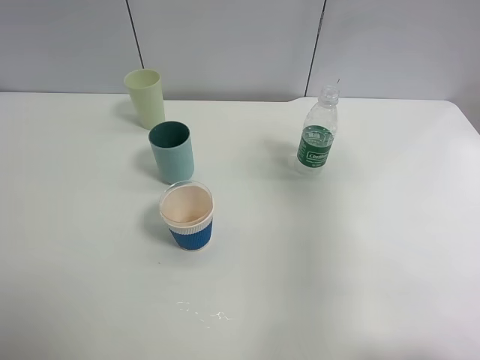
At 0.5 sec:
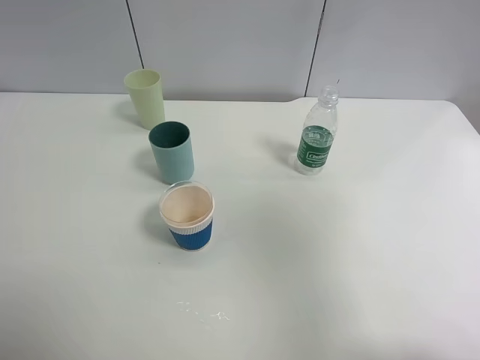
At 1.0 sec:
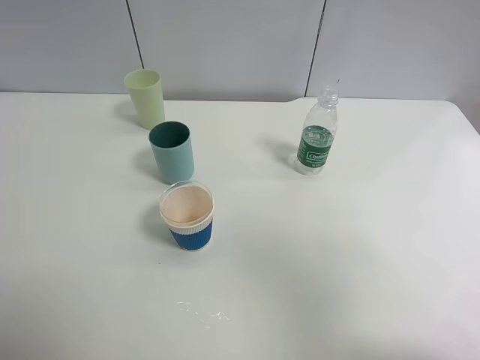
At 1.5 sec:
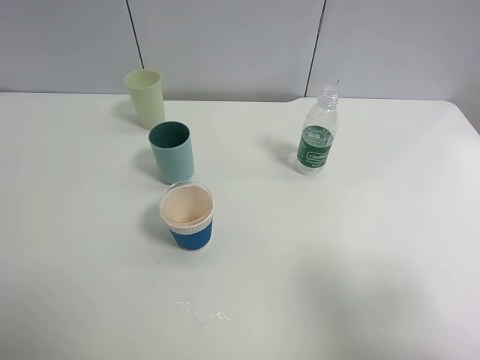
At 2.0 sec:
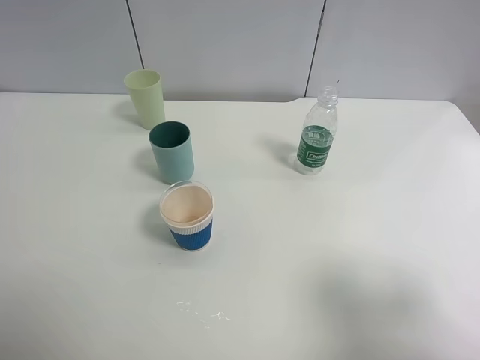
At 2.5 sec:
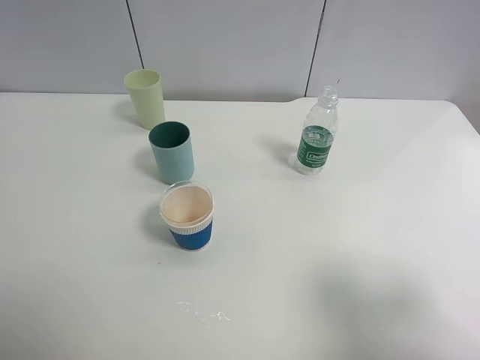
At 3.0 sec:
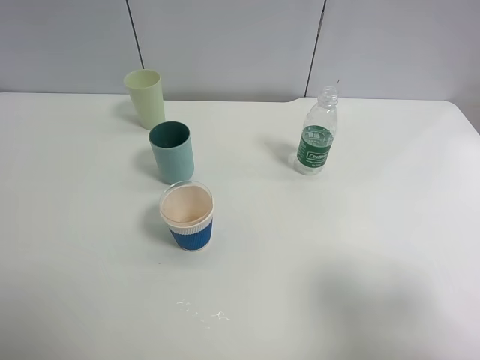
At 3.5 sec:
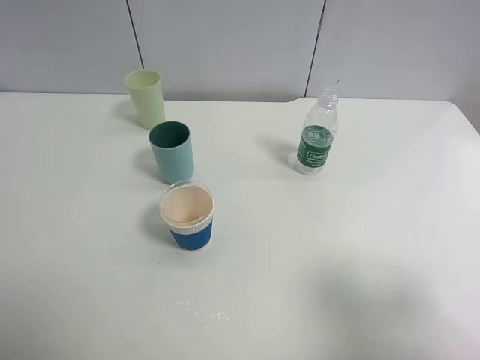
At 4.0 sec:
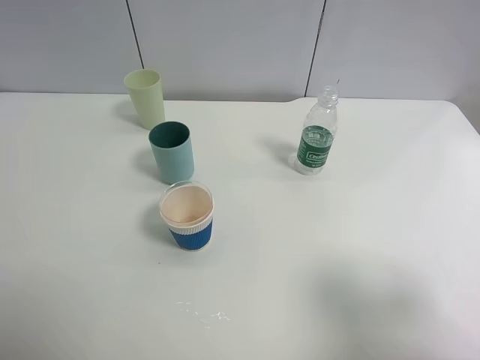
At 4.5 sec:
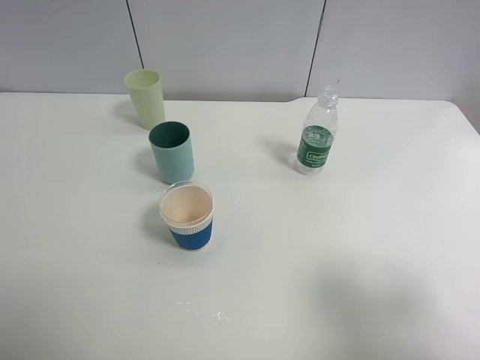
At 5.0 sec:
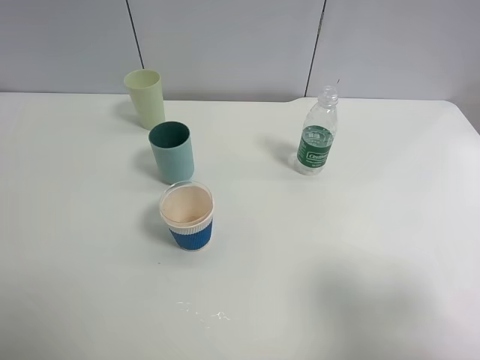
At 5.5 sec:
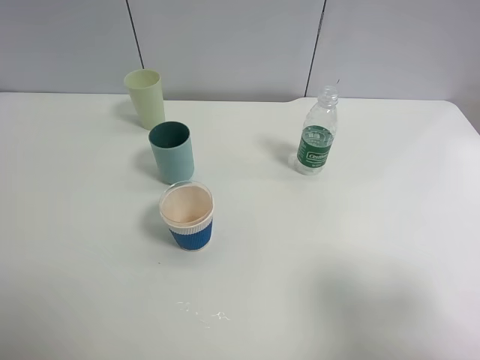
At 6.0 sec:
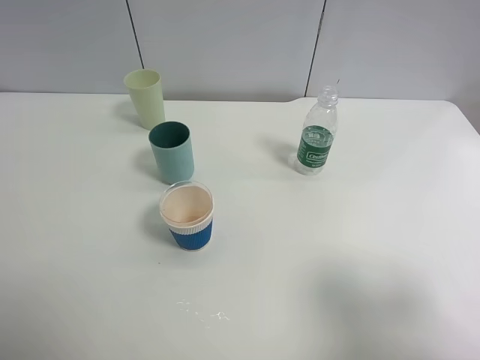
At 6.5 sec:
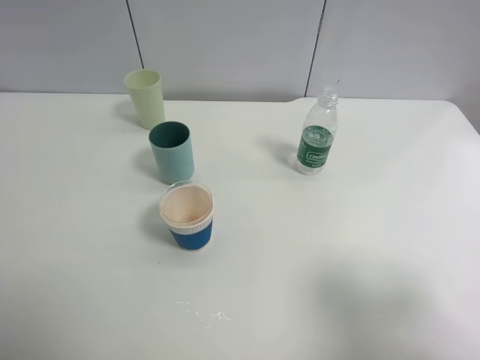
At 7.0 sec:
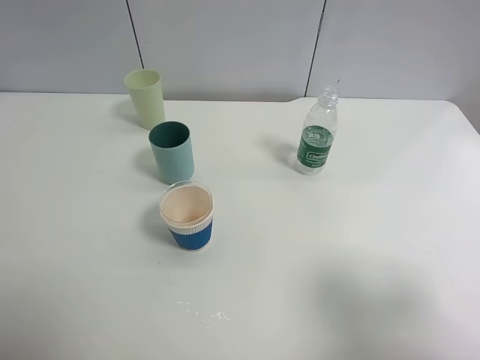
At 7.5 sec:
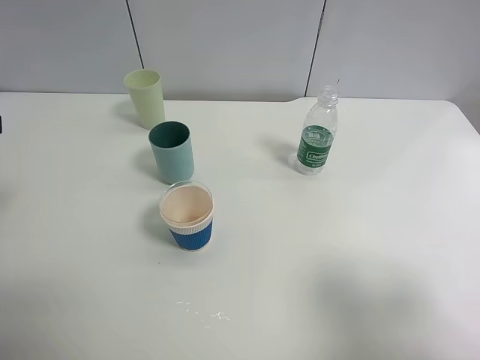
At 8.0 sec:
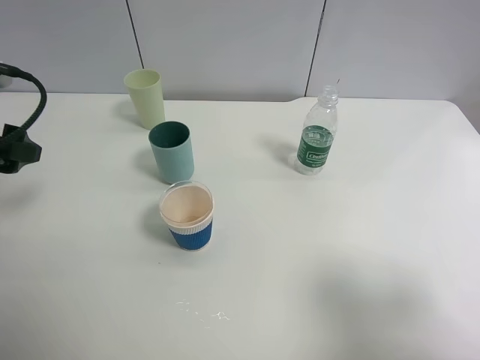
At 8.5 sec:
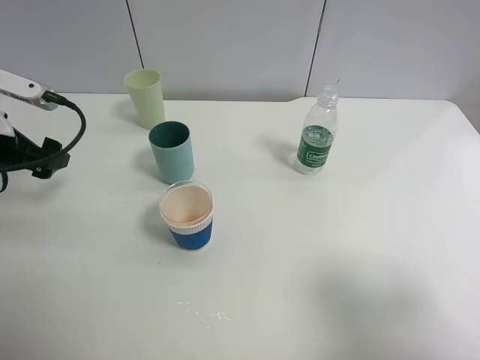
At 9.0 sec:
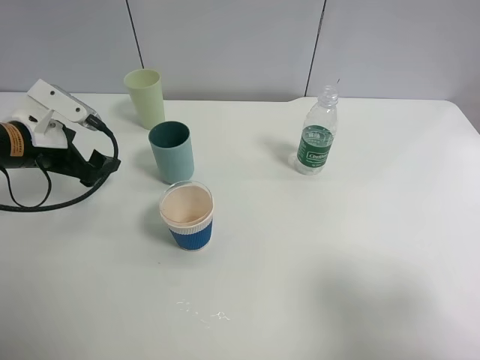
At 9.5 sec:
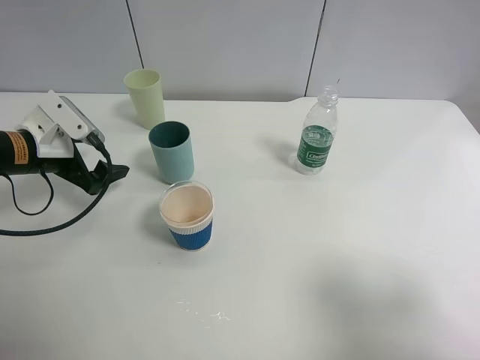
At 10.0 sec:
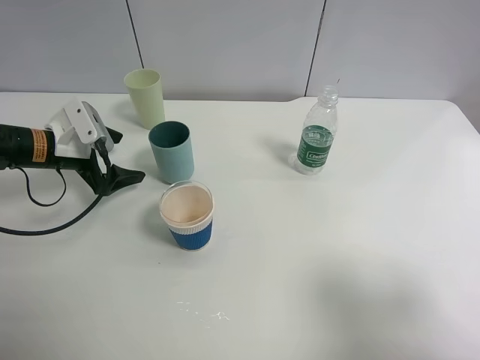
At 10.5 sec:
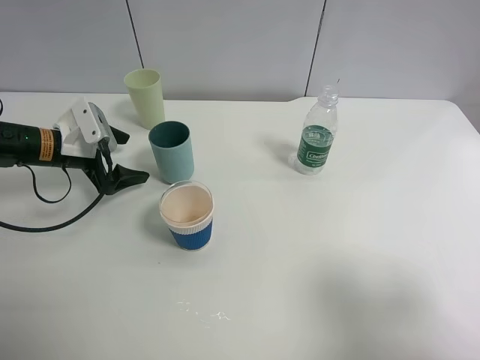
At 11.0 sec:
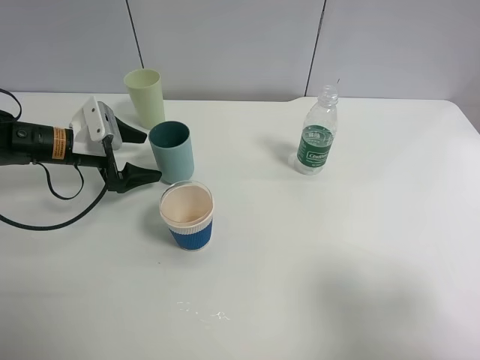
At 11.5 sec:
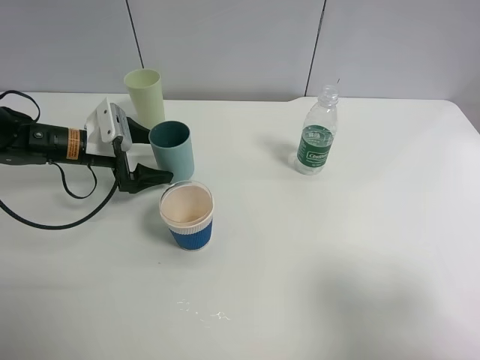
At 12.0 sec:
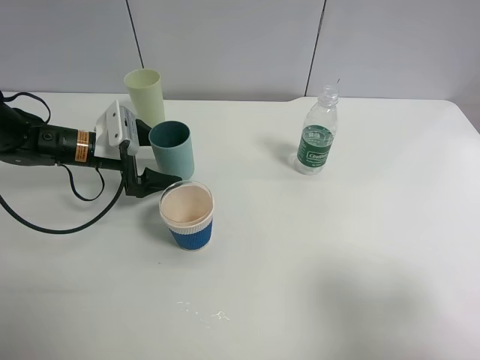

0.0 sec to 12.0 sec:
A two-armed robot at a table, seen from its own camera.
Task of the whole recording: use a clamp to hold the bottle of the drink, pour the beverage into a random cup, then clamp the cup containing the drink and pour the drink into another random cup.
0.0 sec to 2.0 sec: The right gripper moves backward and downward, some 20 cm.
2.0 sec to 6.0 sec: Both grippers stay put.
6.0 sec to 8.0 sec: The left gripper heads forward, covering approximately 20 cm.
8.0 sec to 10.0 sec: The left gripper travels downward and forward by approximately 15 cm.
10.0 sec to 12.0 sec: The left gripper shifts by about 5 cm.

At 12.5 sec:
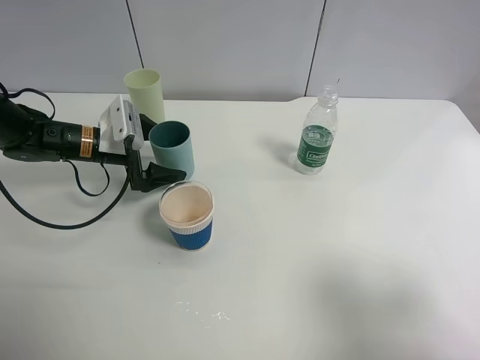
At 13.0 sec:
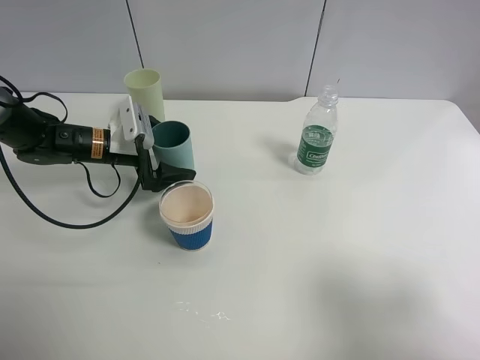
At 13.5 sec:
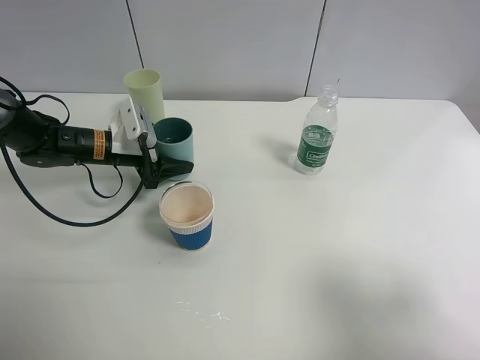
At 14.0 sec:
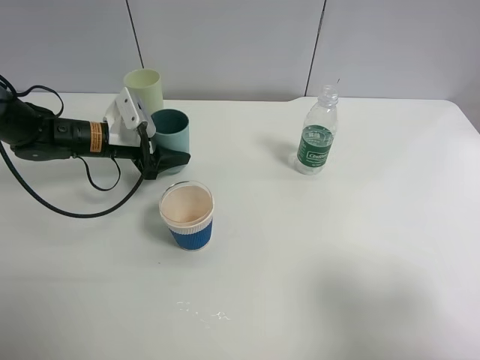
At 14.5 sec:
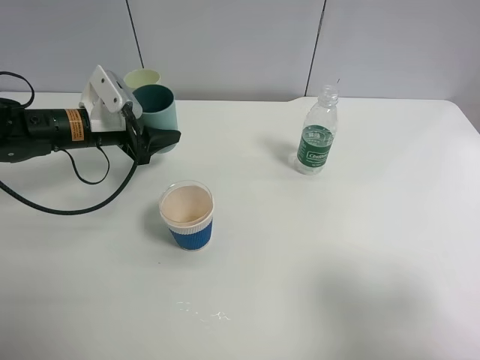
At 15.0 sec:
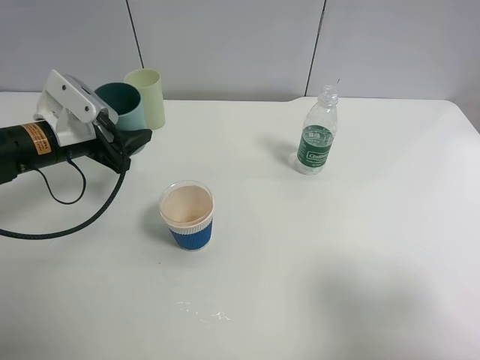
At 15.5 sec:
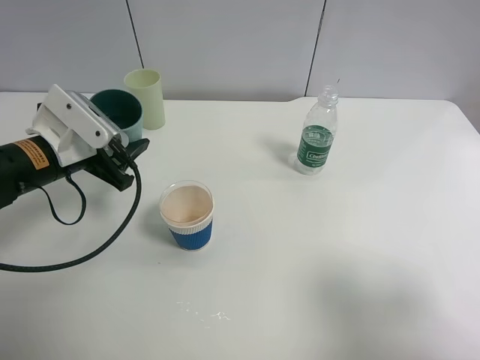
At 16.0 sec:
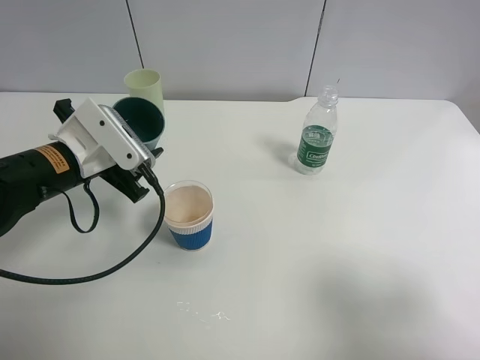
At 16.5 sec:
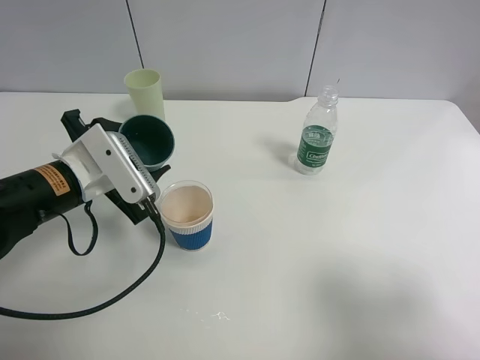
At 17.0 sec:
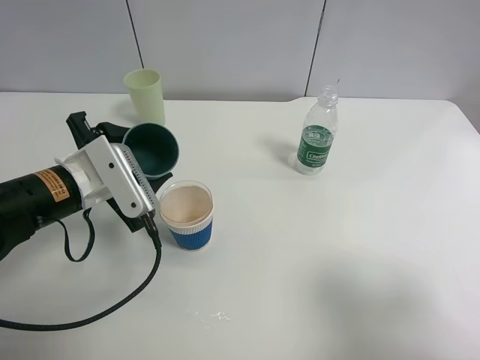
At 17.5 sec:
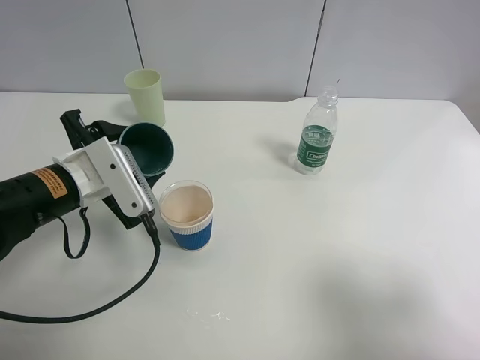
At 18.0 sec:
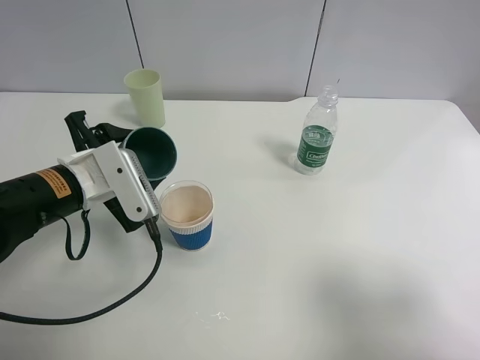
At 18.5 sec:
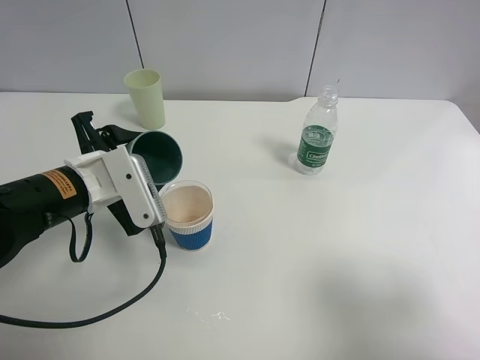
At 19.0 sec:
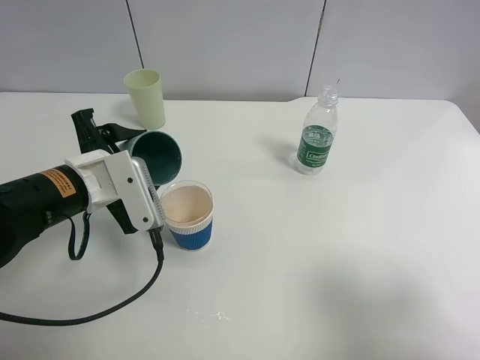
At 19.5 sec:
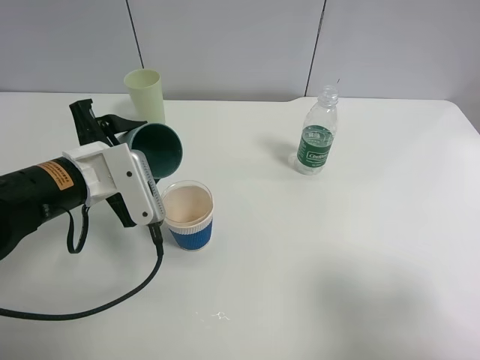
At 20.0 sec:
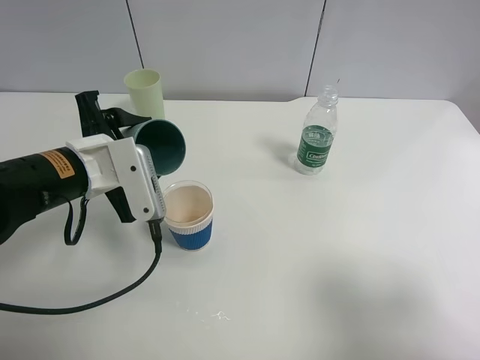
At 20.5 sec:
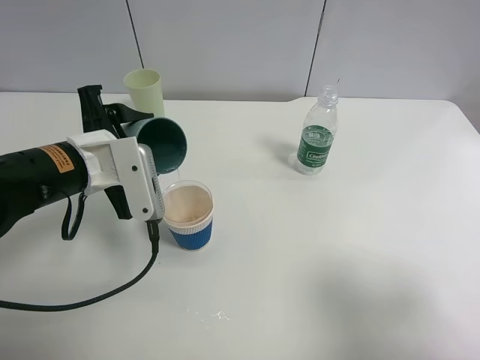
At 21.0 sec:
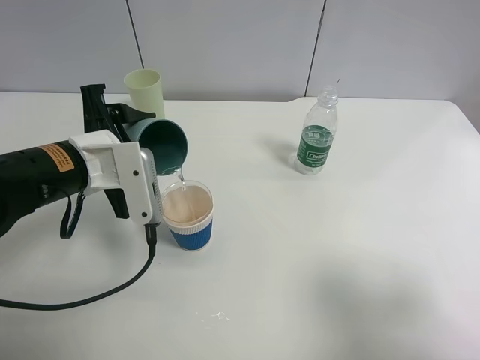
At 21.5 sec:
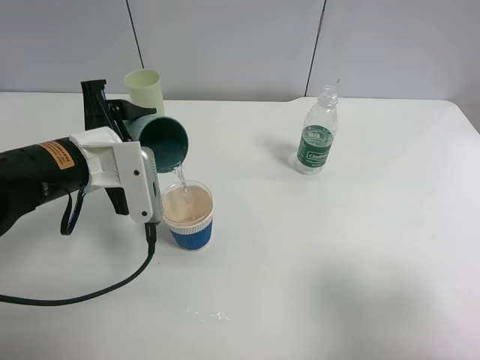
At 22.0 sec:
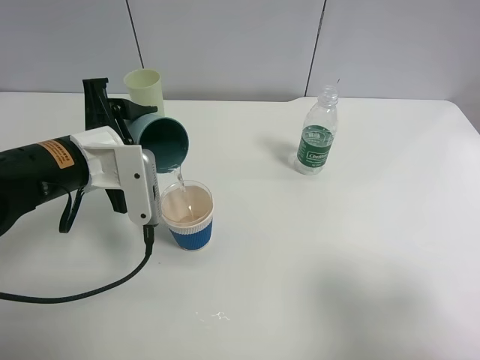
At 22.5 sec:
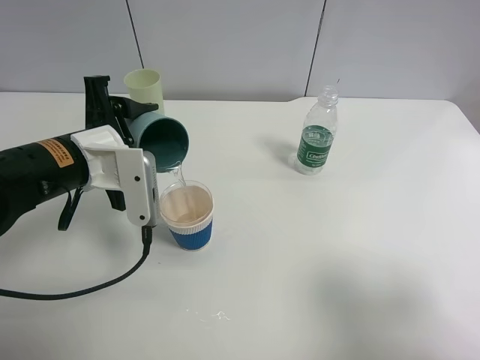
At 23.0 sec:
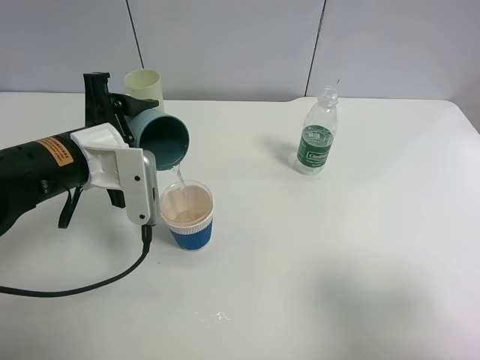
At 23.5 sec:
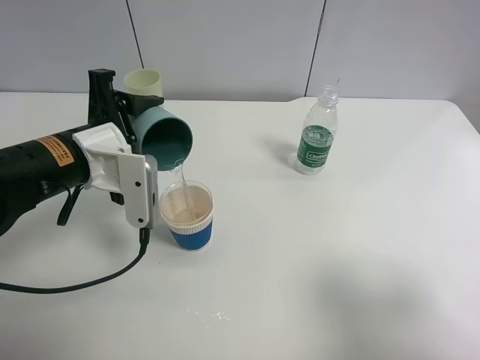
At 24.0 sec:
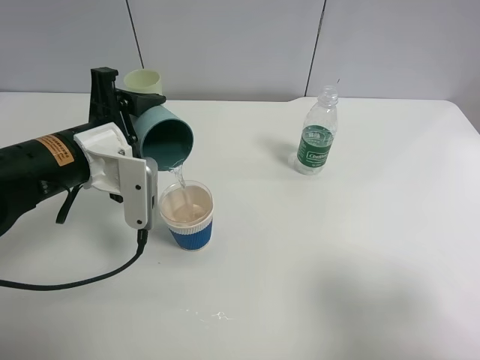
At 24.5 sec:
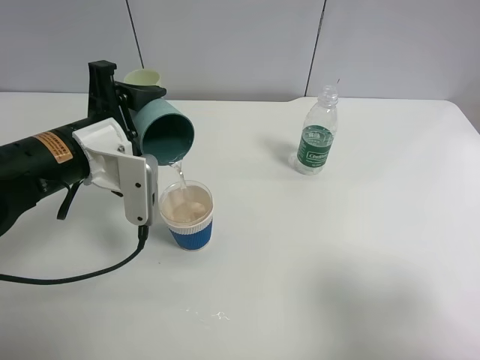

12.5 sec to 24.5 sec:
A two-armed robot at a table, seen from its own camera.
Task of the whole recording: use a clamp to hold the bottle of the drink, pour the beverage into a random cup, then clamp the cup containing the drink and pour the drink into another random cup.
Step, 12.5 sec to 14.5 sec: Pick up the blue plastic cup with left gripper.
12.5 sec to 14.5 sec: The left gripper closes.
14.5 sec to 16.5 sec: The left gripper is displaced backward by some 10 cm.
16.5 sec to 18.5 sec: The grippers make only small movements.
18.5 sec to 20.5 sec: The grippers make only small movements.
20.5 sec to 22.5 sec: There are only small adjustments of the grippers.
22.5 sec to 24.5 sec: The grippers stay close to where they were, moving slightly.

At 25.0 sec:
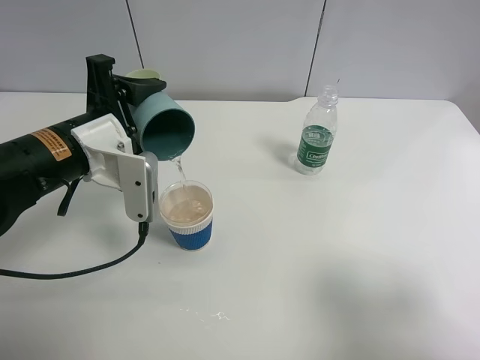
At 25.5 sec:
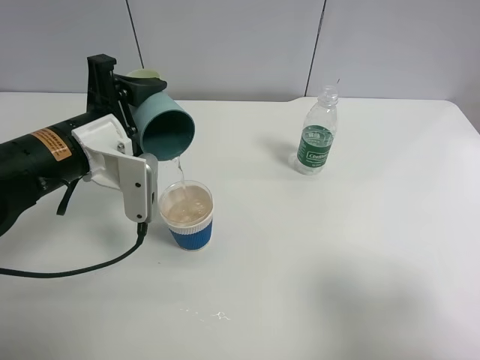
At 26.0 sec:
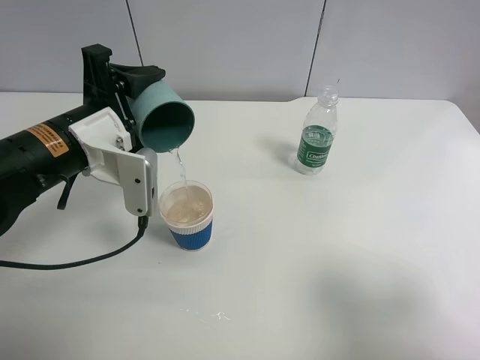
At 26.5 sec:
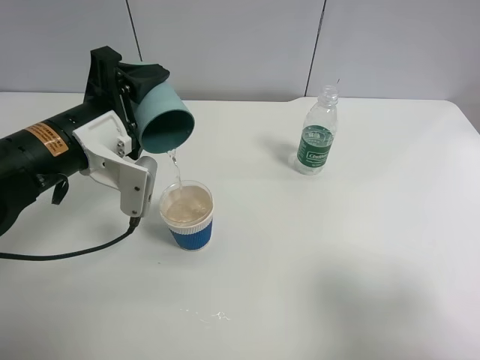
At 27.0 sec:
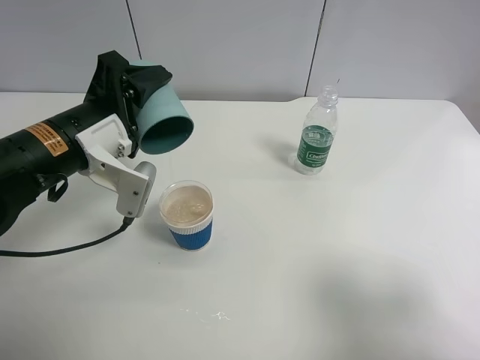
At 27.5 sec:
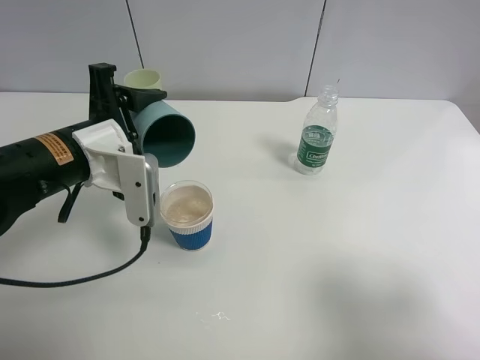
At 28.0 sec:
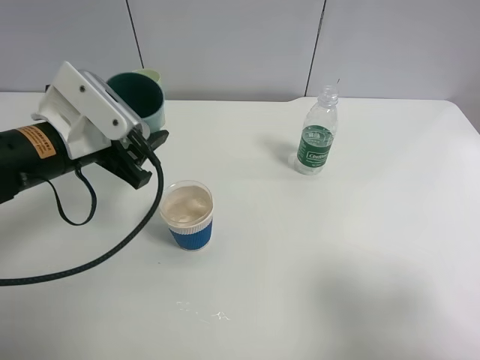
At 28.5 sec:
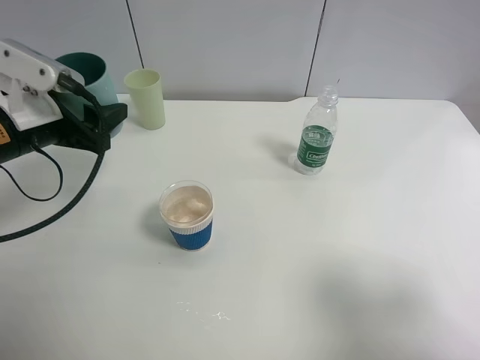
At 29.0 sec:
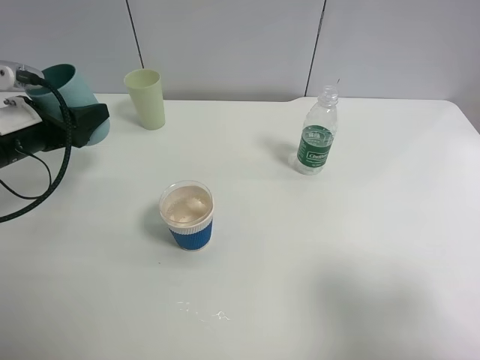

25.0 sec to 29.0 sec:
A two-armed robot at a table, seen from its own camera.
Task of the whole recording: use a clamp to hold the bottle of the drink, pour the beverage into a random cup, then clamp the cup containing the drink and pour the drink into another random cup.
Step, 25.0 sec to 27.5 sec: Pour water into the paper cup with left gripper.
27.0 sec to 29.0 sec: The left gripper shifts roughly 10 cm to the left.
